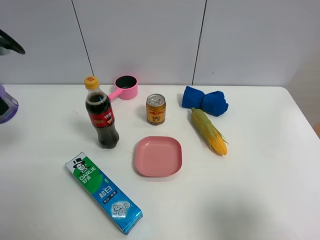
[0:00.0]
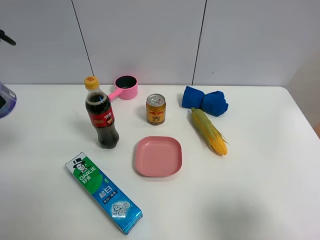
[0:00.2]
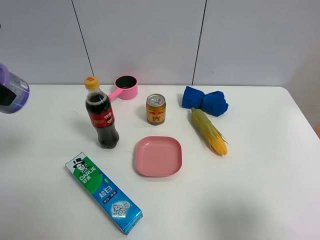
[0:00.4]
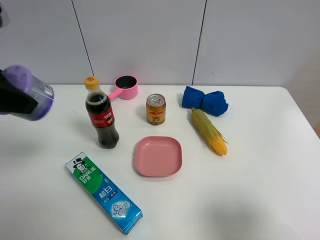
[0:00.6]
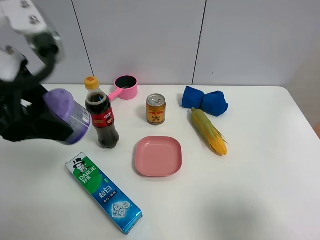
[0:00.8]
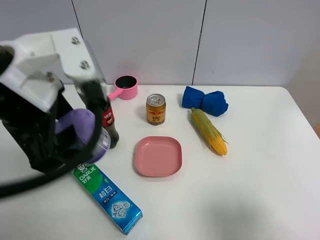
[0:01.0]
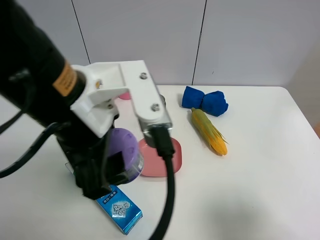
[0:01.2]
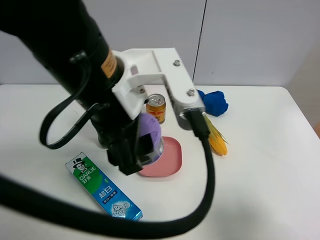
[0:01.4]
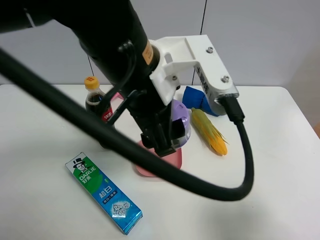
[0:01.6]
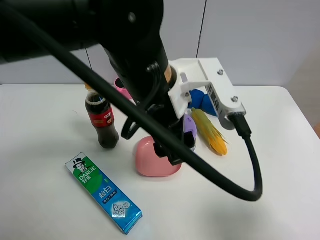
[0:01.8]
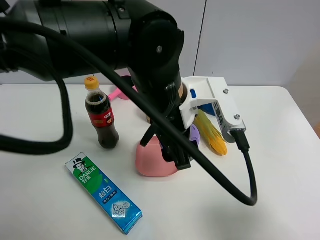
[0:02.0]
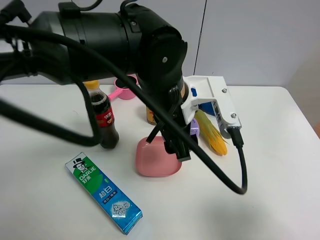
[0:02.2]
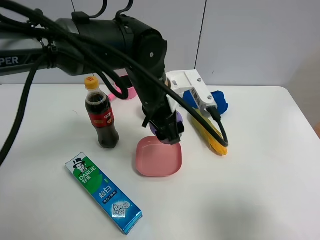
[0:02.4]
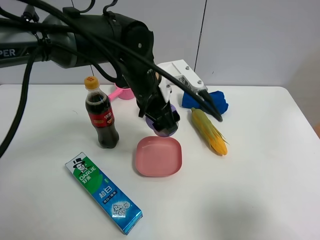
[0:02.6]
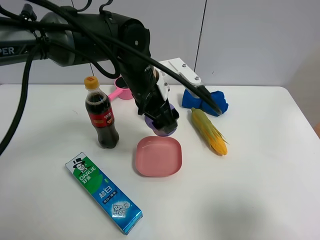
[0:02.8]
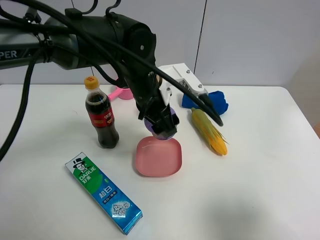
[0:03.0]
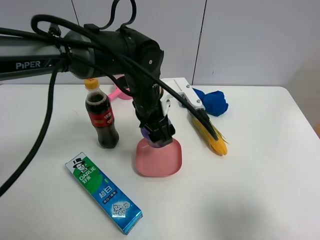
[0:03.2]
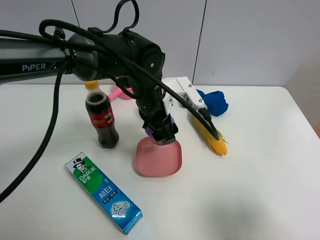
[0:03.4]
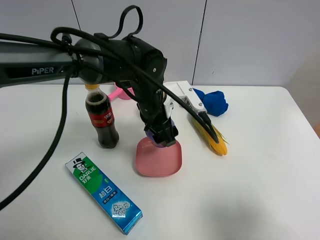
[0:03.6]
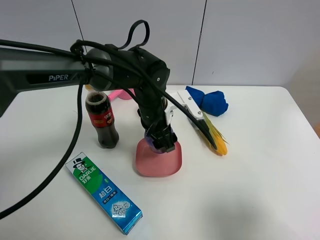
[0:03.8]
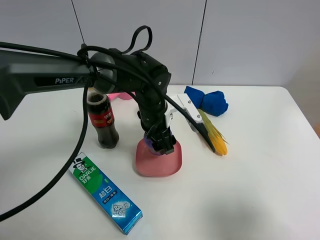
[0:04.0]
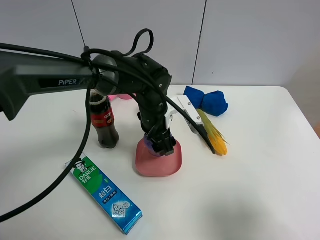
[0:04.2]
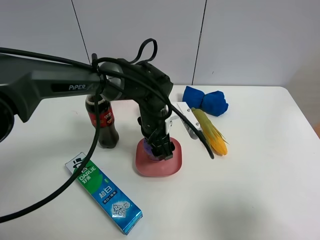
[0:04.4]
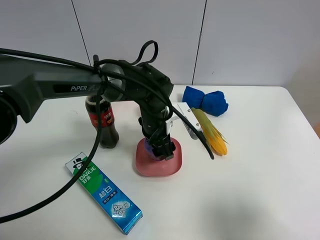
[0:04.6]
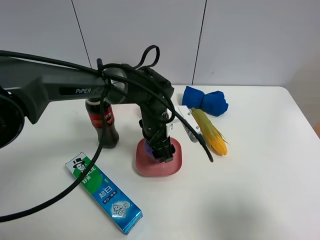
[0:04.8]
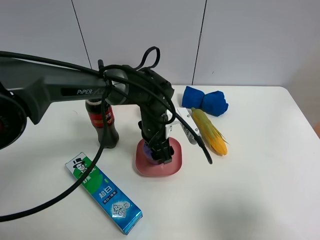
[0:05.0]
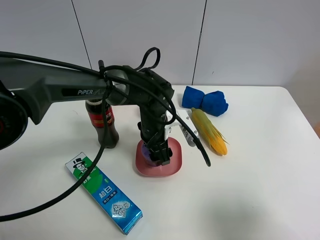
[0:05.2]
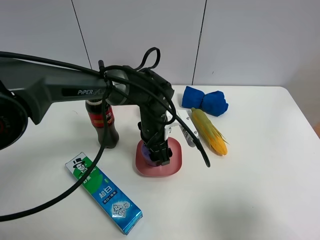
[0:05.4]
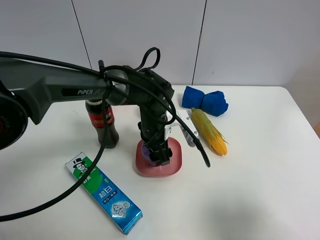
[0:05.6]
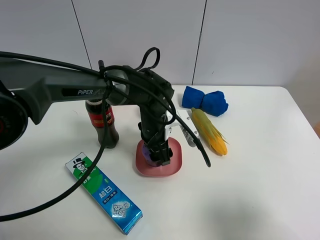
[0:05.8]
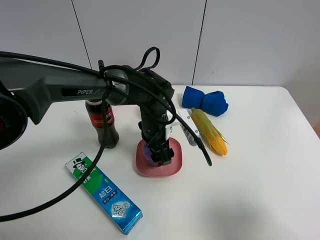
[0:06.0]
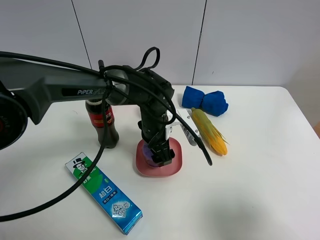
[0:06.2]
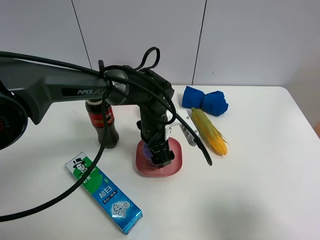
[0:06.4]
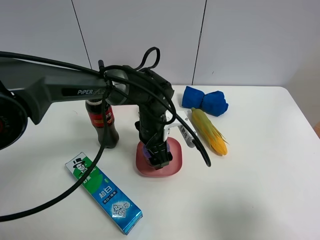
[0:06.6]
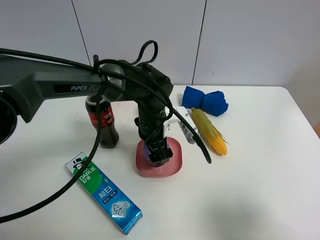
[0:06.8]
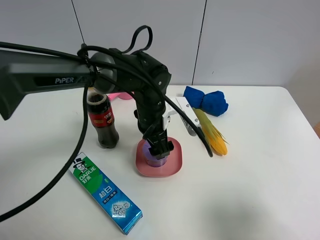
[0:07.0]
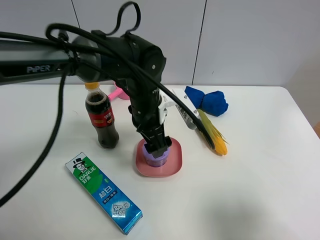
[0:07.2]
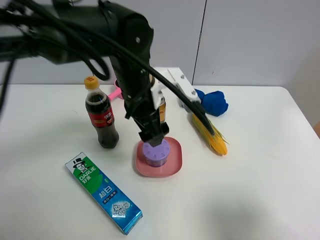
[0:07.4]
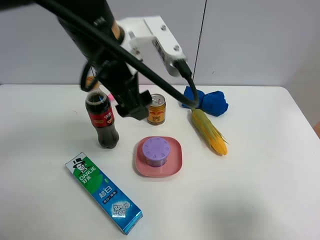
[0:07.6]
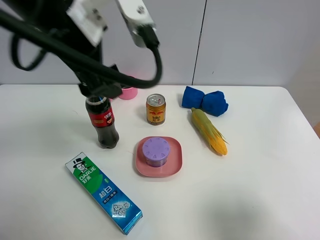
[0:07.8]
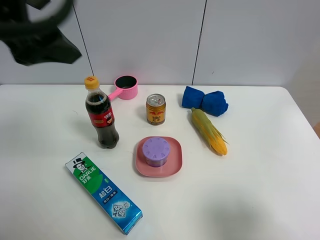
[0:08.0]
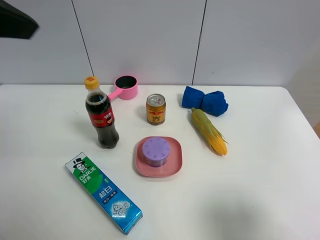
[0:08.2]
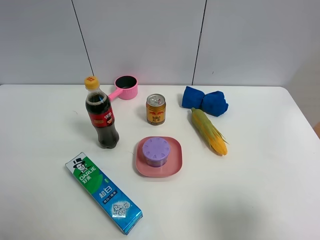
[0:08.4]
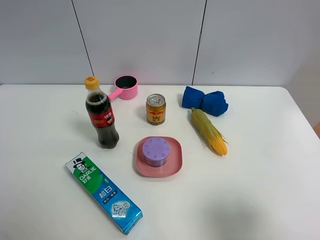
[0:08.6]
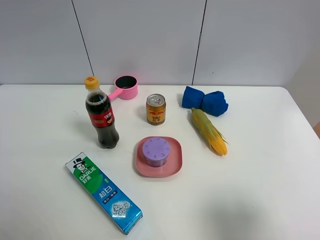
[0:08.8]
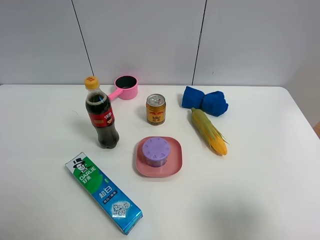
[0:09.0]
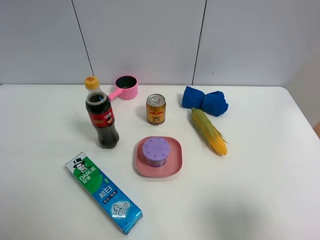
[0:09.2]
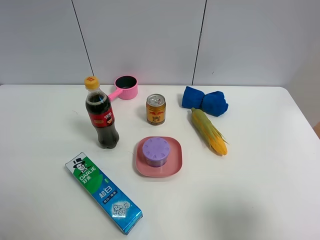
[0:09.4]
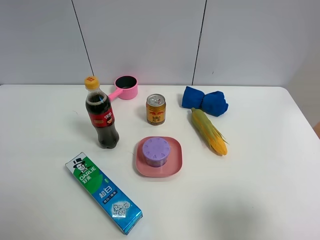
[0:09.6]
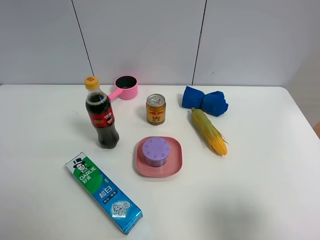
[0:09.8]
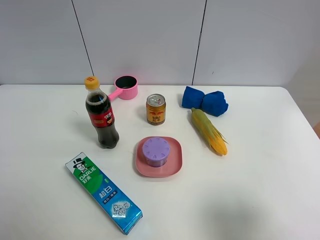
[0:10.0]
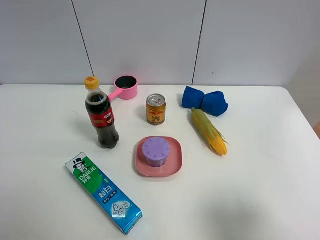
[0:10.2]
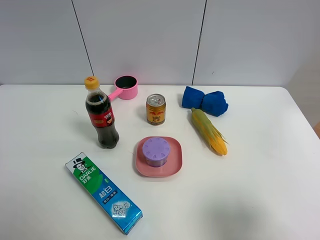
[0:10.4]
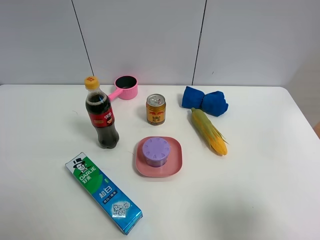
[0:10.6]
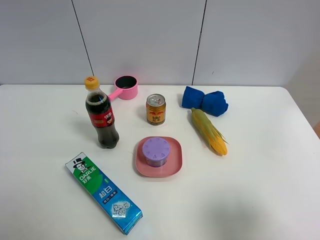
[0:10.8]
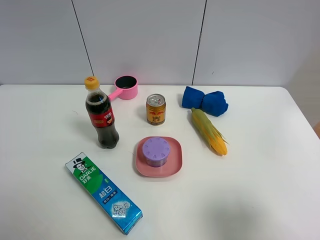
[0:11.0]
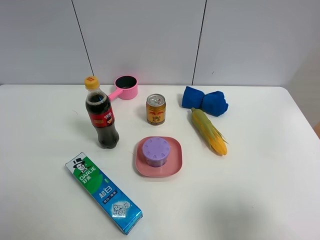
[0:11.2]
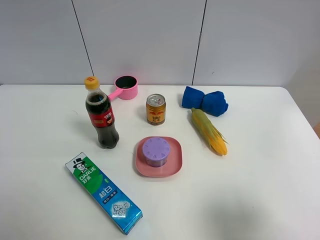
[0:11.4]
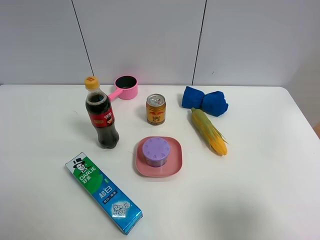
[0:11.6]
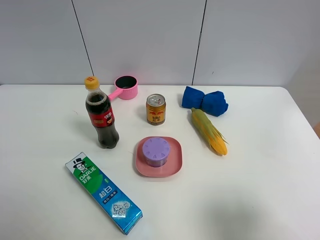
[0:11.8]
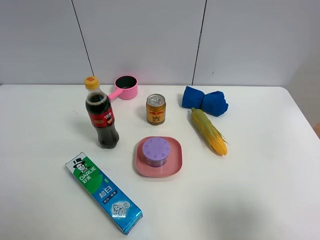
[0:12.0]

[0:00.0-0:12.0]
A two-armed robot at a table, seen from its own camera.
Task of the whole recording: the gripper move the object.
Step, 0:00.0 to 0:06.8: Place the Incense box into the pink plate with the left gripper.
0:00.0 to 0:01.6: The left gripper is displaced to the right by roughly 35 cm.
0:01.6 to 0:03.0: The left gripper is displaced forward and downward by roughly 15 cm.
0:03.0 to 0:04.4: The left gripper goes approximately 10 cm downward.
0:04.4 to 0:06.0: The grippers stay close to where they were, moving slightly.
0:06.0 to 0:07.6: The left gripper heads upward, covering roughly 25 cm, and opens.
0:07.6 to 0:09.0: The left gripper goes approximately 40 cm to the left, backward and upward.
